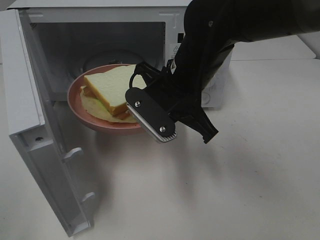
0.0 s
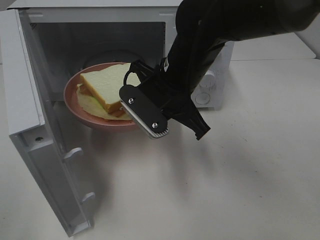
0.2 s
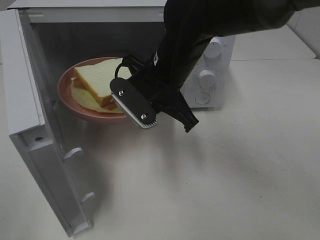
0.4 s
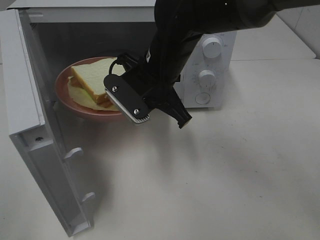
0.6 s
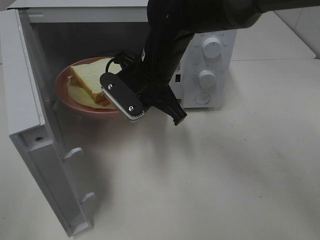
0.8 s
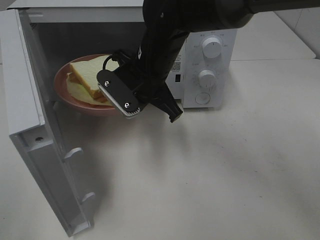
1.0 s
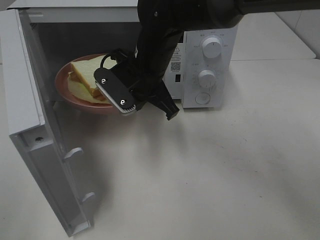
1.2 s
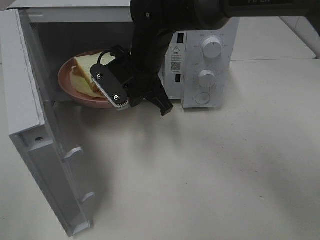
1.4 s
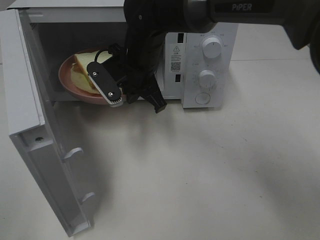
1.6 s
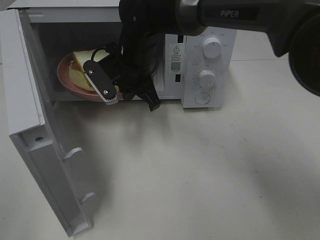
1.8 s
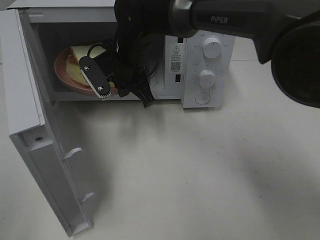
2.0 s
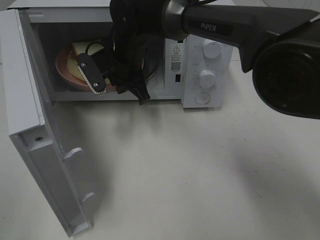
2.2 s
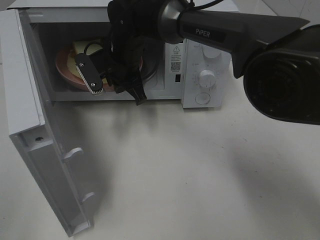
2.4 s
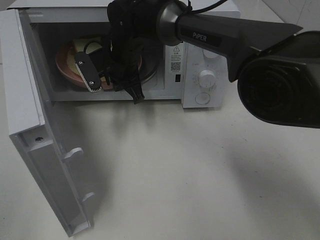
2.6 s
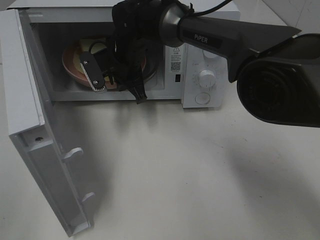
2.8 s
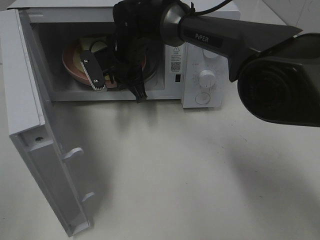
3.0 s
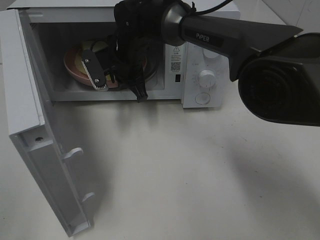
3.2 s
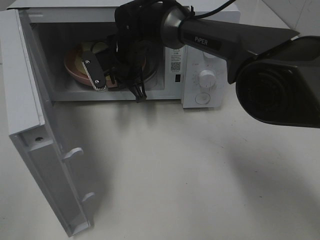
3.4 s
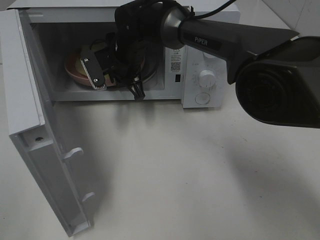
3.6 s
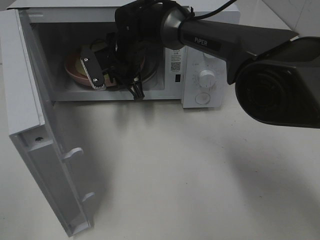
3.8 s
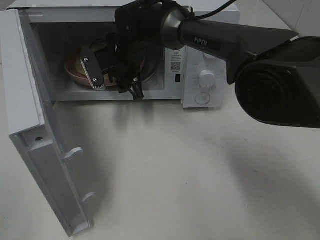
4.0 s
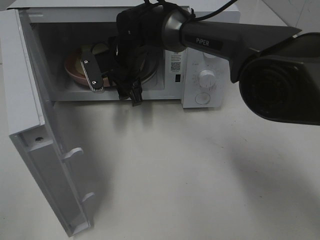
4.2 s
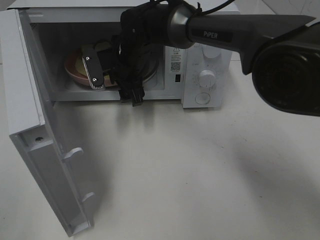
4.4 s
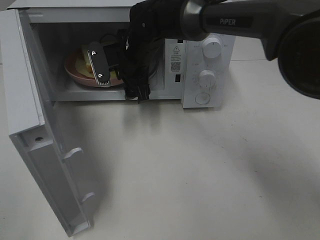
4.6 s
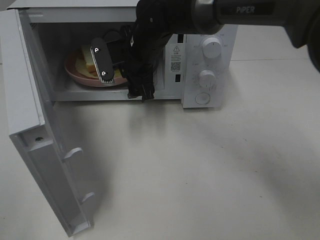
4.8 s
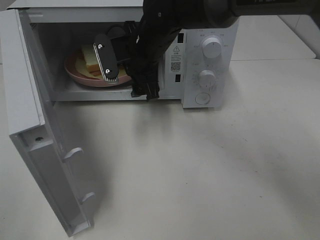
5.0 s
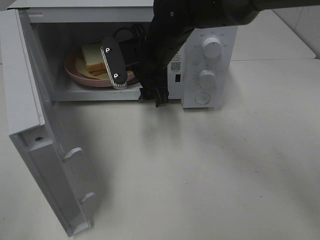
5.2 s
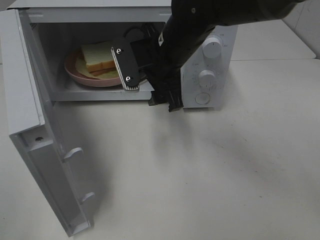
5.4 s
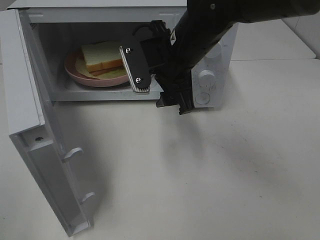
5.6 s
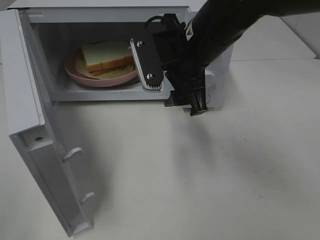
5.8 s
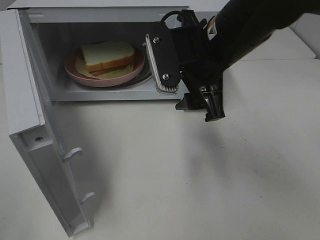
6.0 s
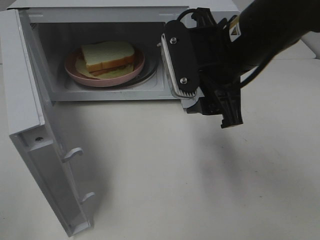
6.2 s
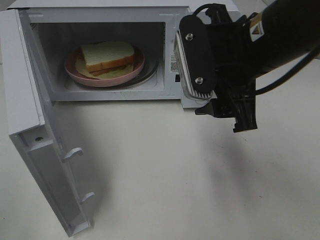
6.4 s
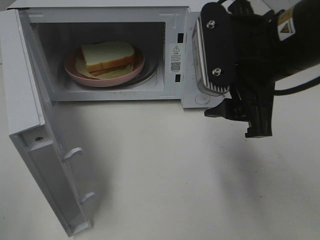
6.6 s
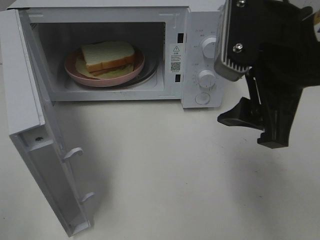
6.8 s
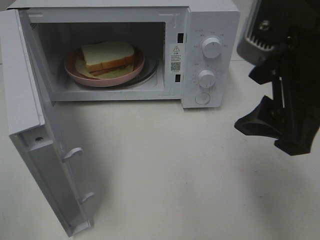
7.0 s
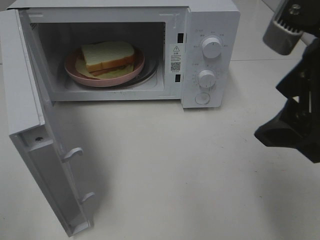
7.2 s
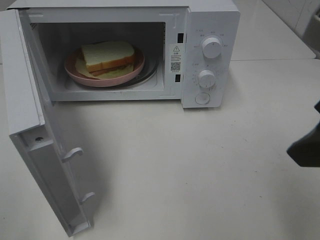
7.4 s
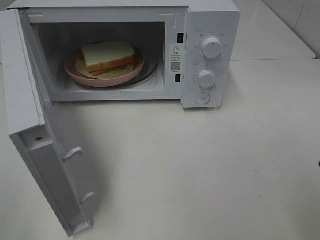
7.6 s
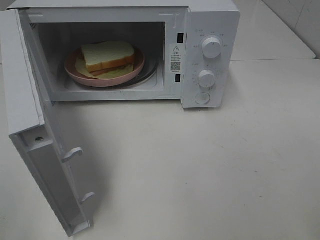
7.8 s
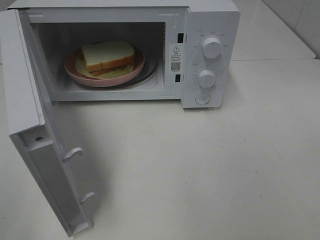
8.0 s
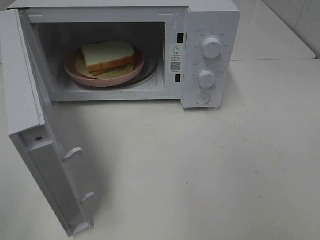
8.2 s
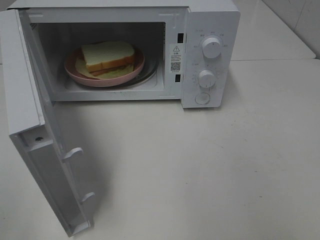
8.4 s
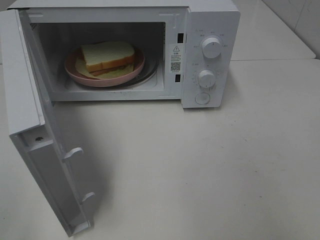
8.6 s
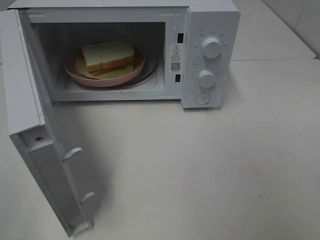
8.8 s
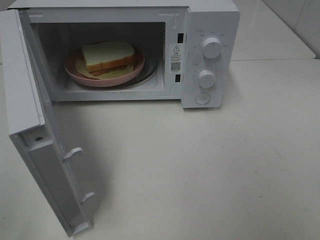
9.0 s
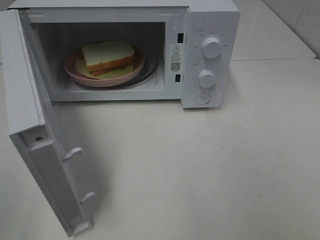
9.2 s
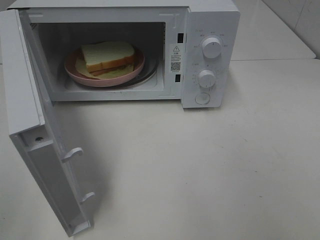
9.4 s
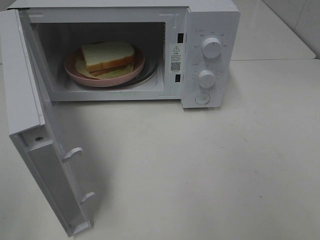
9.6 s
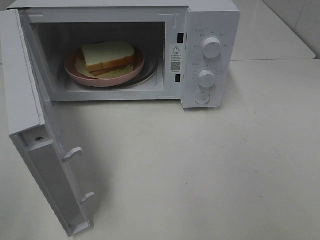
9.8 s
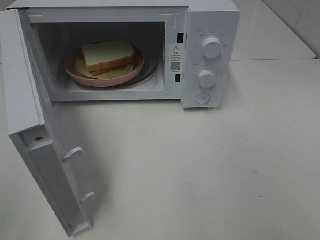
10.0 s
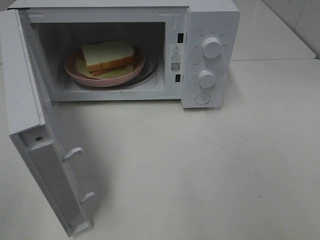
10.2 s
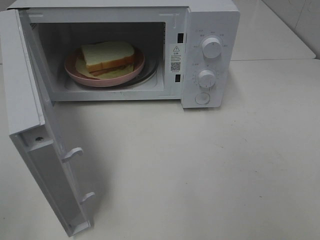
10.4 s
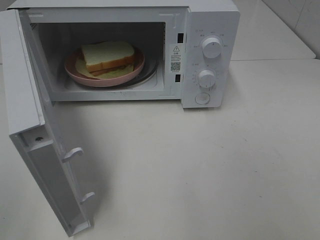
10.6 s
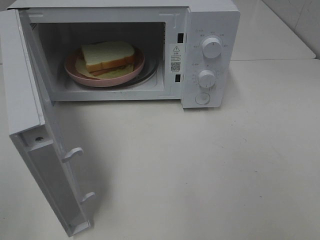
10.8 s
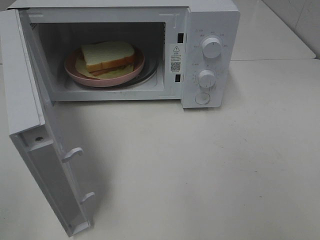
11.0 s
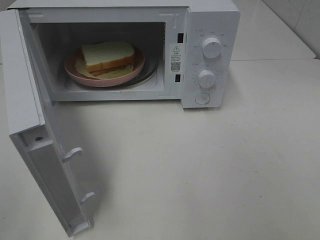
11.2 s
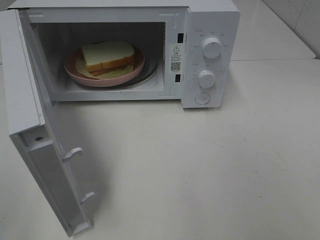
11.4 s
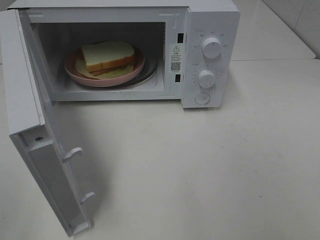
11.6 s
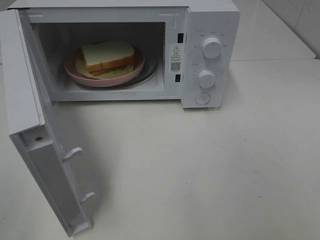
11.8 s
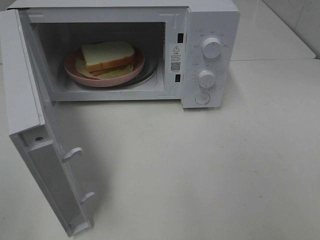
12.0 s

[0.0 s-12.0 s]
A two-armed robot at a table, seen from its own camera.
Task of the whole recording: Heat Sandwich.
Step, 0.0 to 5.0 s: Right hand: place the plate in the microwave.
0.0 to 1.6 s: The right gripper heads forward and to the left, covering roughly 10 cm.
1.6 to 3.0 s: The right gripper heads forward, covering roughly 5 cm.
3.0 to 4.4 s: The right gripper opens.
4.4 to 6.0 s: The right gripper travels backward, to the right and upward by approximately 20 cm.
6.0 to 7.6 s: The right gripper travels backward, to the right and upward by roughly 25 cm.
10.4 to 12.0 s: Both grippers stay put.

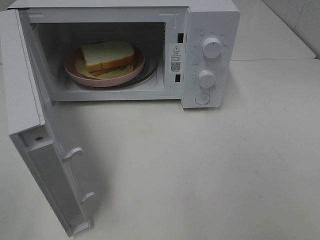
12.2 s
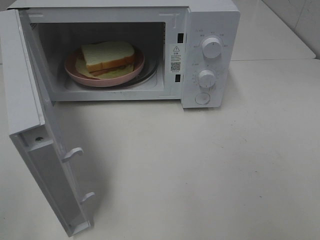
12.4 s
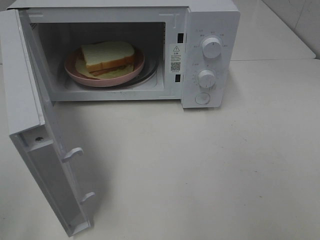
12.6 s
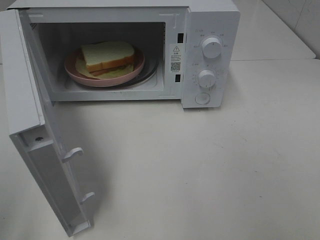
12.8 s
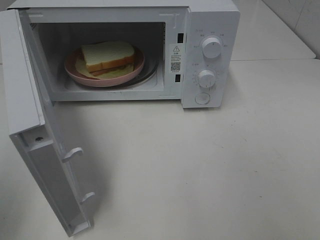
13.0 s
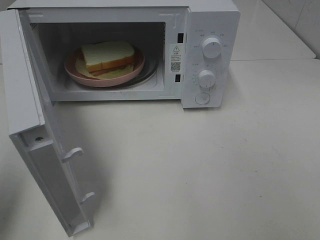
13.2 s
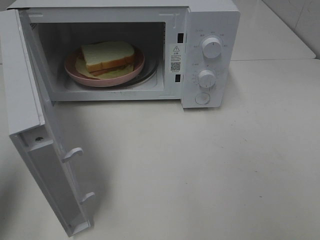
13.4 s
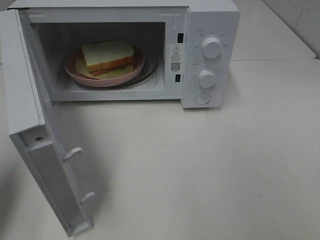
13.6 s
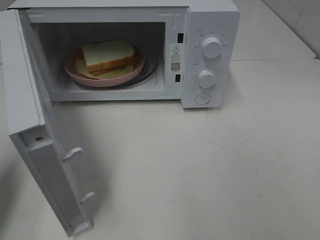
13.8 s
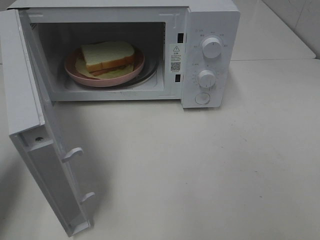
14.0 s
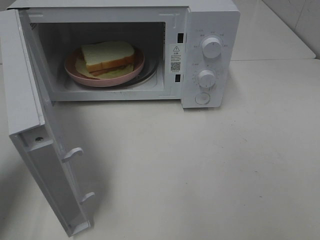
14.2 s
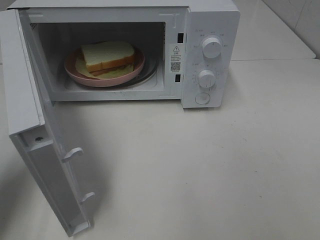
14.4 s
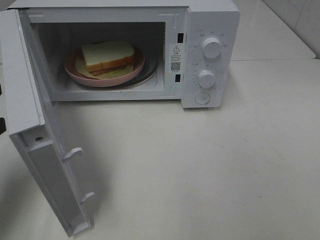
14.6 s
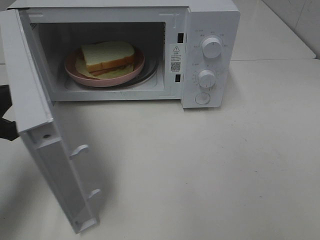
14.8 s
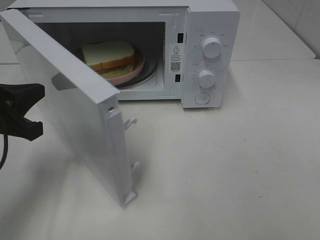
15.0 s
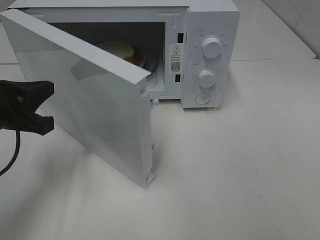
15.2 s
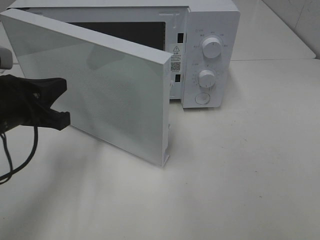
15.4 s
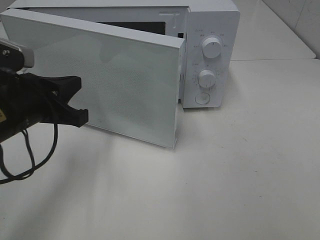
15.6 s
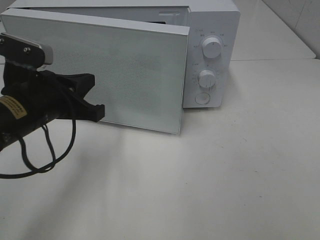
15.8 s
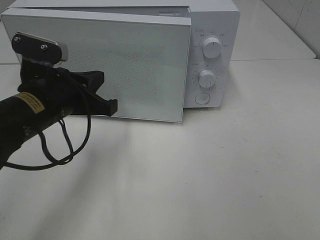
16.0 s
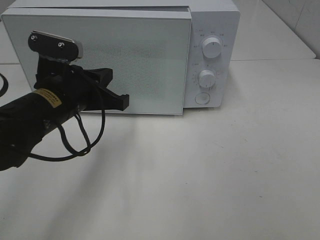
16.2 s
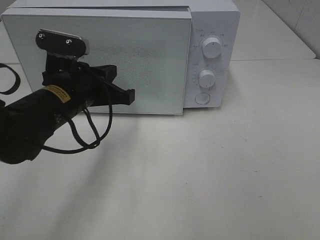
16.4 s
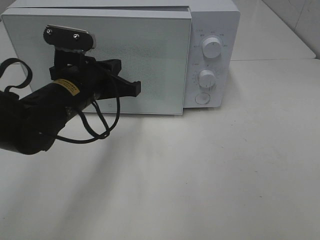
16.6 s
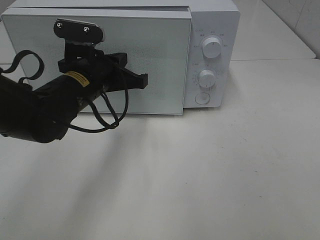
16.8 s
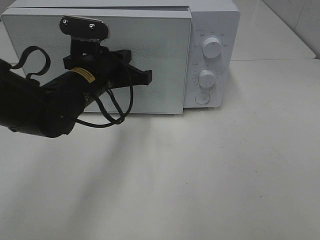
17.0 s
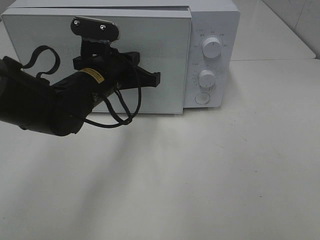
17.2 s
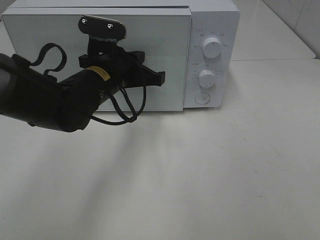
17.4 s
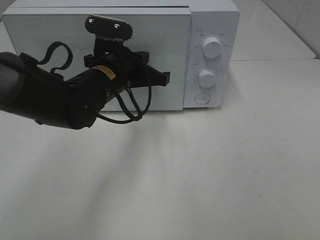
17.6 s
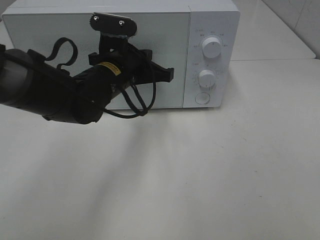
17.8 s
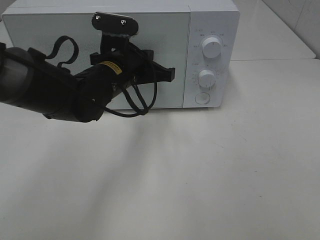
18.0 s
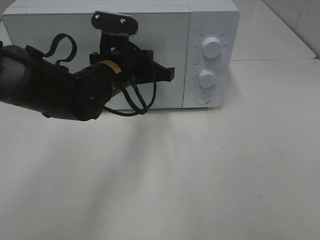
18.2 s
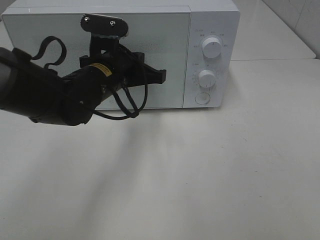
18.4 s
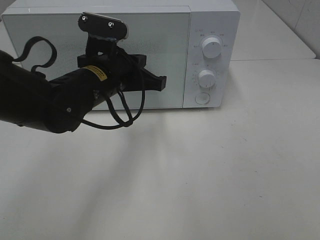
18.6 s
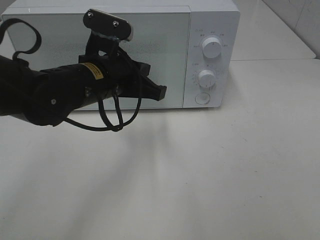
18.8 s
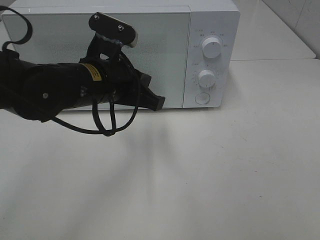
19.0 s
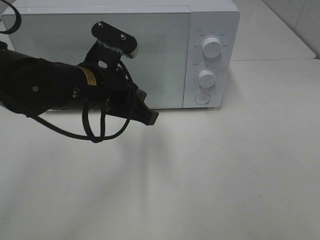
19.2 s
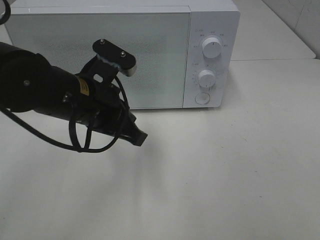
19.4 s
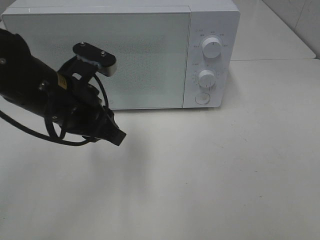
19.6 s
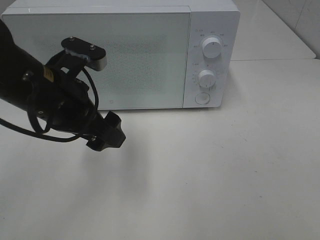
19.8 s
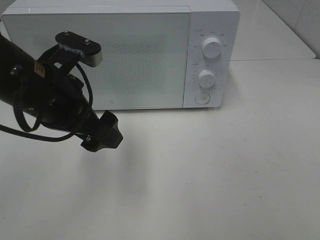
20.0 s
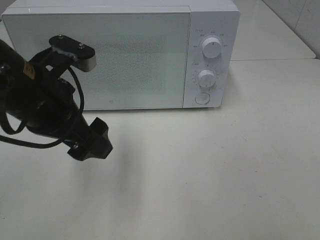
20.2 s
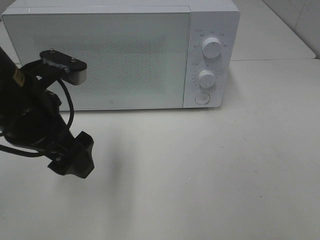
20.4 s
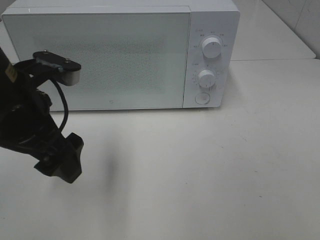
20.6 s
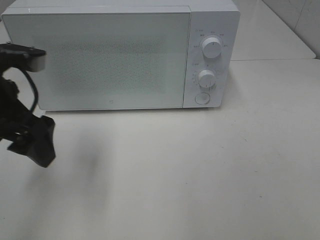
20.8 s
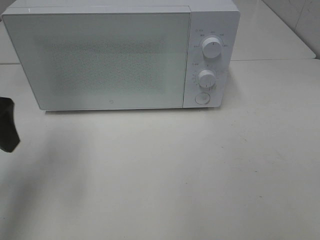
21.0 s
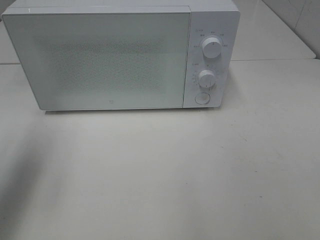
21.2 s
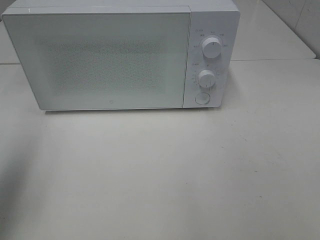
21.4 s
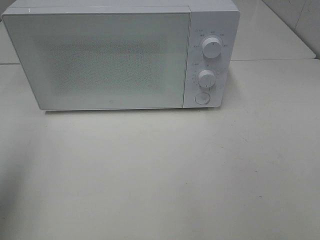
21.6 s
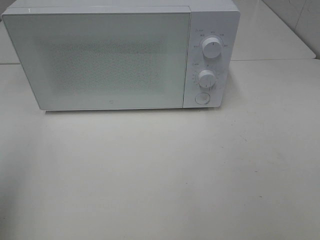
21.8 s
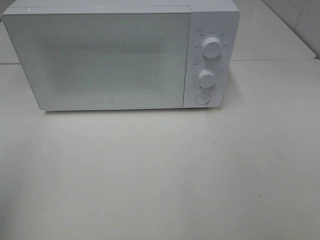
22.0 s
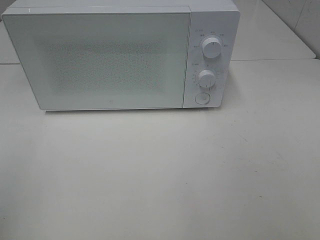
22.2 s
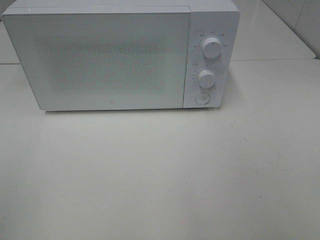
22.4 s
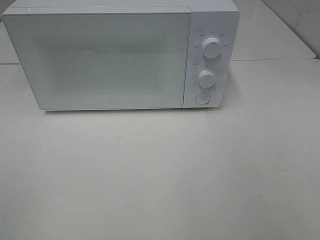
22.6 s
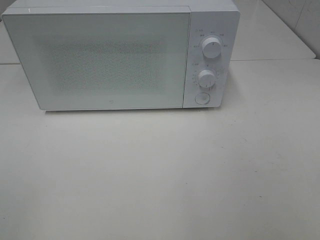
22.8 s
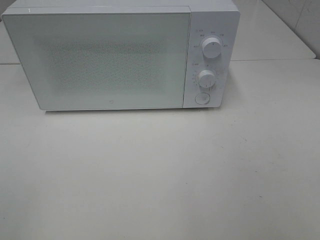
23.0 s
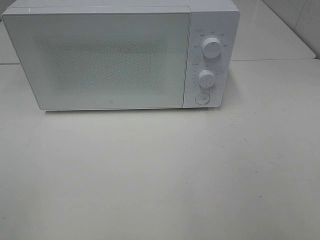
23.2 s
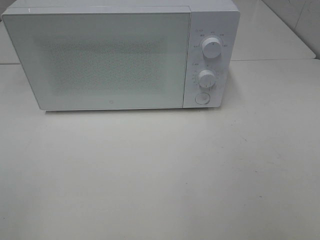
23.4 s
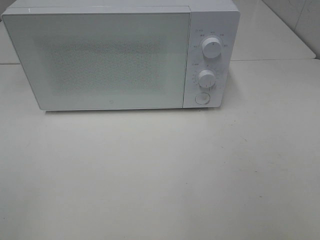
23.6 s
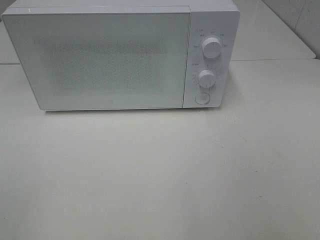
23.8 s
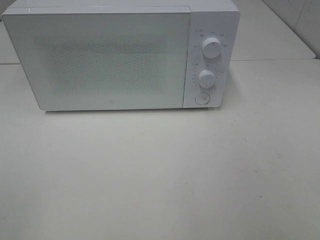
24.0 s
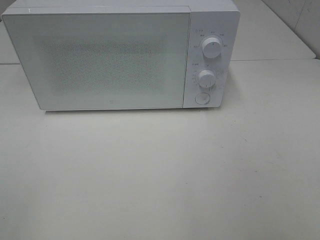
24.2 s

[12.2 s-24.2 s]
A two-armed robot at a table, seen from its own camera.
Task of the whole recording: Heat Sandwich.
Step, 12.2 to 20.0 s: Left hand: close the microwave door.
12.2 to 13.8 s: The left gripper heads forward, covering about 15 cm, and closes its fingers.
13.8 to 15.2 s: The left gripper goes roughly 10 cm to the right and forward.
15.2 to 16.6 s: The left gripper moves to the right and forward, some 15 cm.
16.6 to 18.2 s: The left gripper shifts roughly 5 cm to the right.
18.2 to 19.8 s: The left gripper heads backward and to the left, covering about 10 cm, and opens.
19.8 to 21.2 s: The left gripper shifts approximately 20 cm to the left and upward.
21.2 to 22.6 s: The left gripper heads backward, covering some 20 cm.
